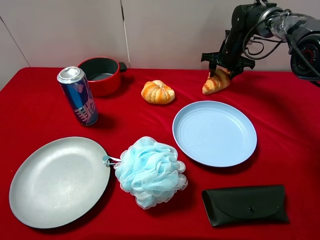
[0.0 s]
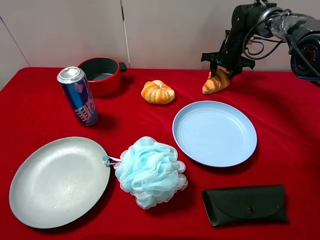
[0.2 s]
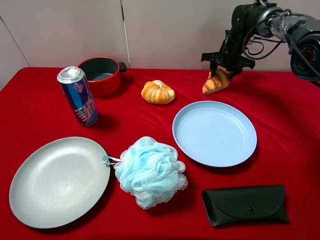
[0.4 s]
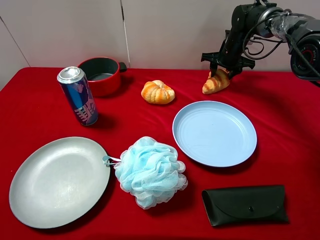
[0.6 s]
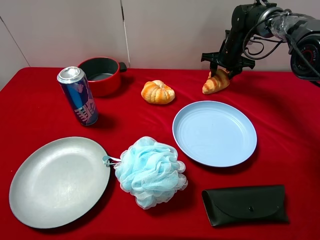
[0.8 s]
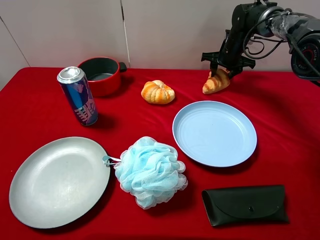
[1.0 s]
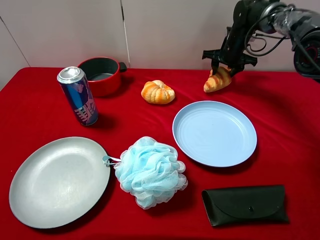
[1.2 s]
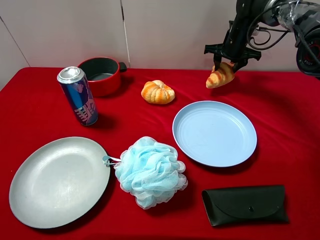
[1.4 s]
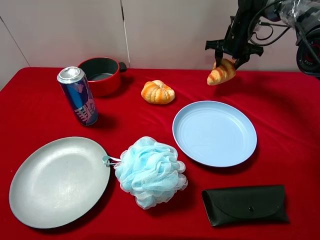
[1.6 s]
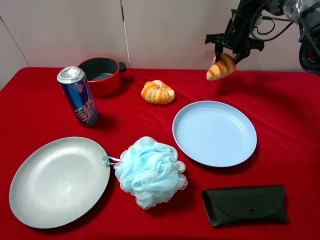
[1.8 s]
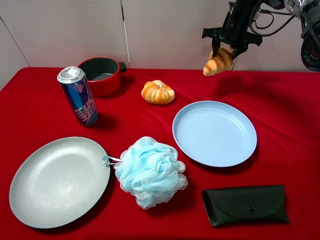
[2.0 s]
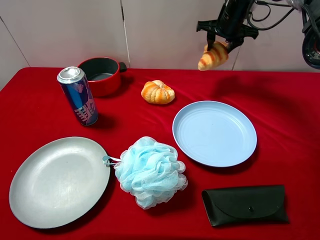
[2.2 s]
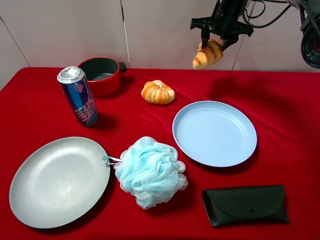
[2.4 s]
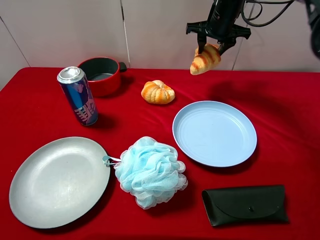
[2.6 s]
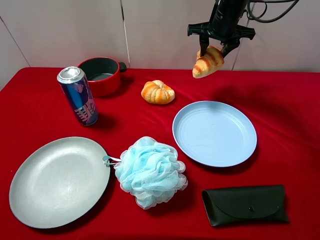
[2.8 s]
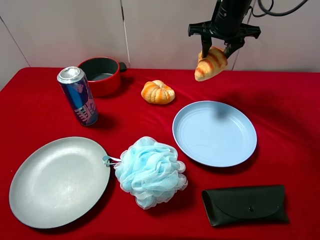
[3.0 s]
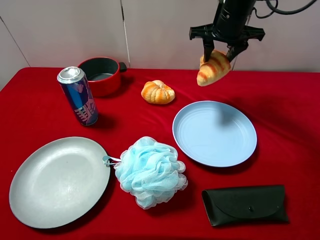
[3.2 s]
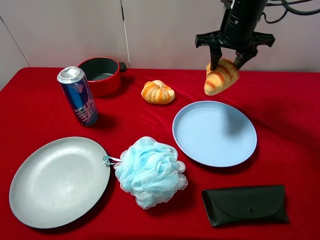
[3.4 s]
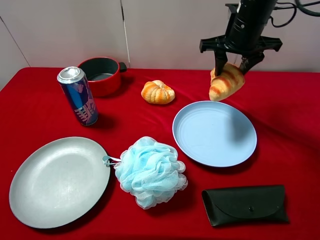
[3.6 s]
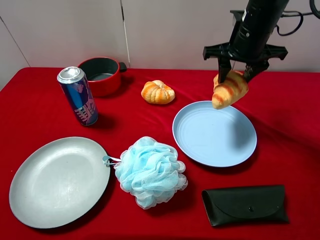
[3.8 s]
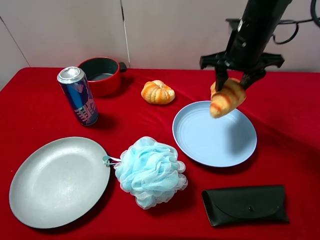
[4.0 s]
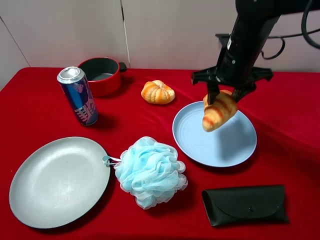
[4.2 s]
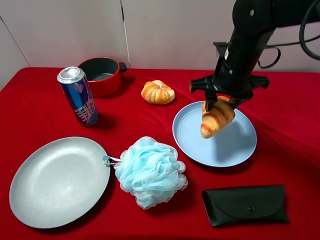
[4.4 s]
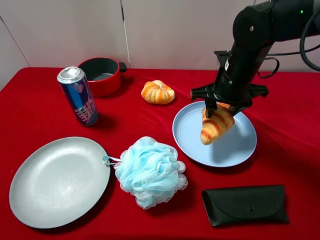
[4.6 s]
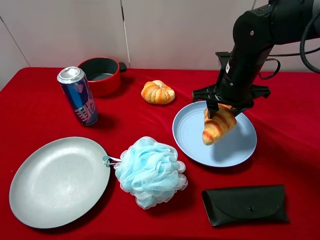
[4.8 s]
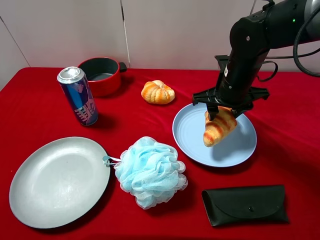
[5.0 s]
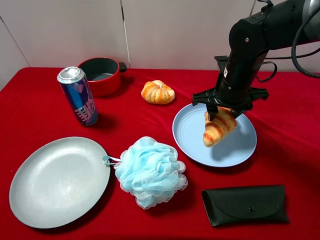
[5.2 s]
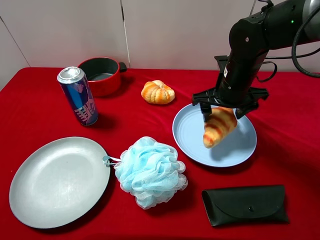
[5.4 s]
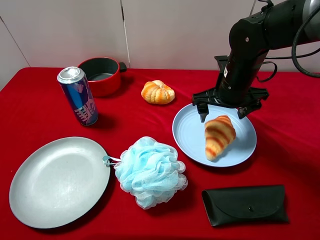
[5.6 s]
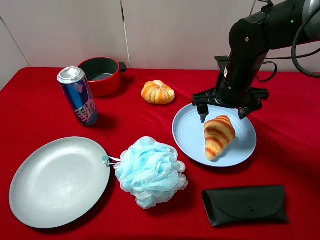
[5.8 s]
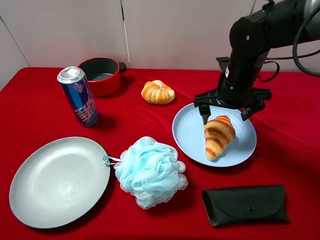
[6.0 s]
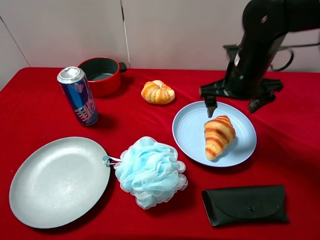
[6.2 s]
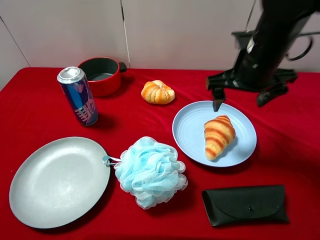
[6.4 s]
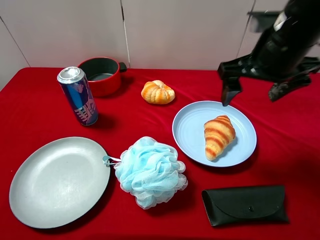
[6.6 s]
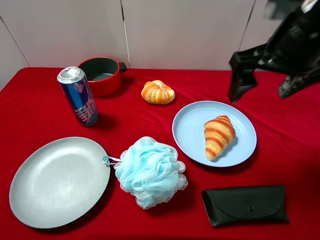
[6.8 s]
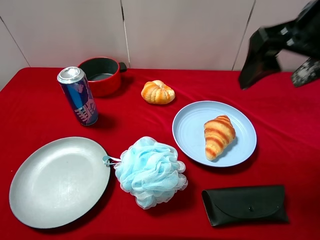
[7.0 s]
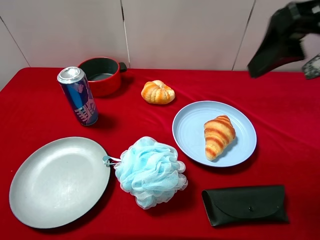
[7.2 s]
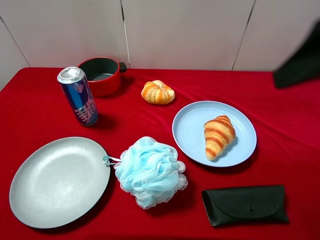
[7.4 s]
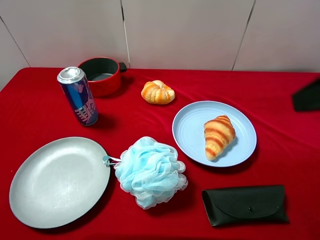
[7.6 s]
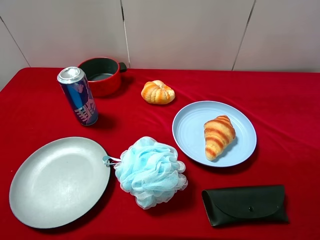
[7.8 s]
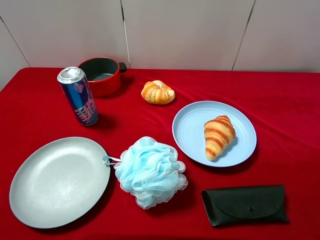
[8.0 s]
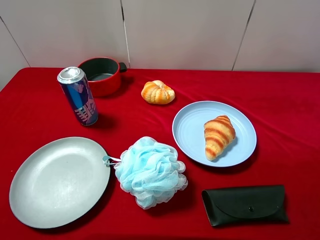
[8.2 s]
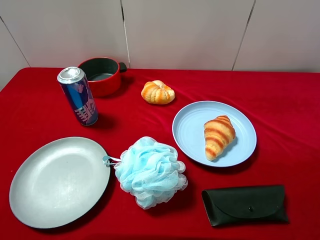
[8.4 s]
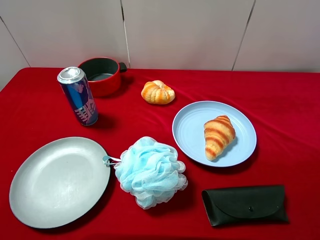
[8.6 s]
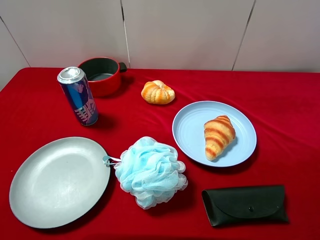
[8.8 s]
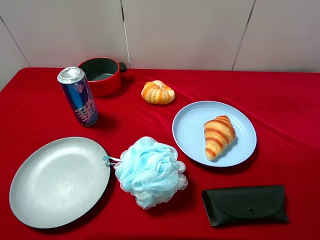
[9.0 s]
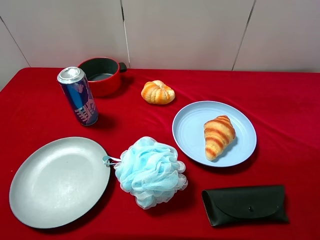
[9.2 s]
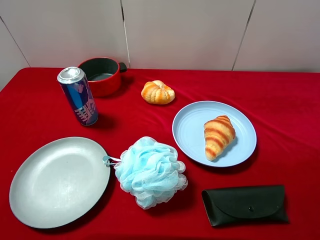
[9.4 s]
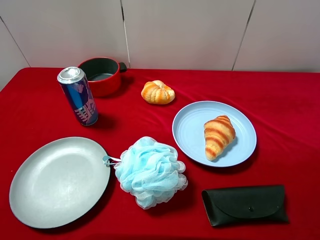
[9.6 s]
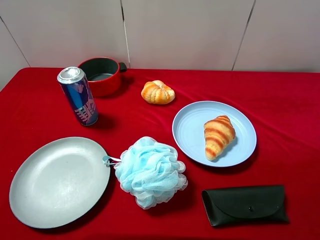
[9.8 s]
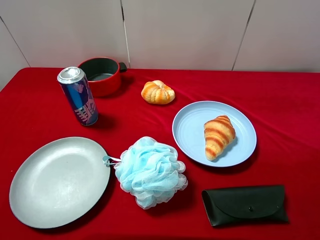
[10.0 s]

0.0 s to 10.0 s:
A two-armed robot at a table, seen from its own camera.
Task of the whole recording: pick up an item with a gripper and place it in a random container on the desktop.
0.0 to 1.4 s: The grippers move only a little.
1.4 to 2.8 s: The right gripper travels upward, backward and to the left by some 10 cm.
2.8 to 4.2 s: The right gripper travels backward by about 15 cm.
4.2 to 5.8 s: The right gripper opens its fingers.
5.8 to 7.2 s: The right gripper is displaced upward and backward by approximately 25 cm.
7.2 to 8.6 s: The right gripper travels backward, to the right and downward by roughly 20 cm.

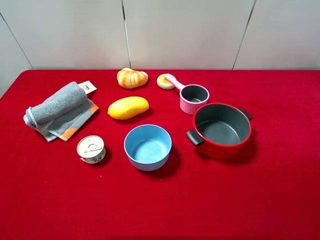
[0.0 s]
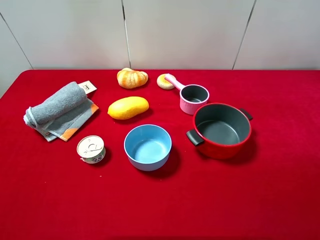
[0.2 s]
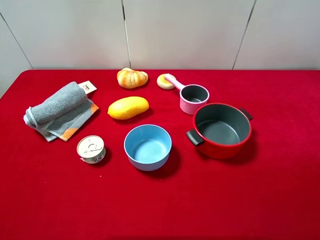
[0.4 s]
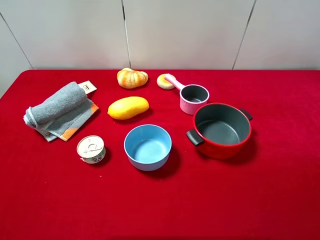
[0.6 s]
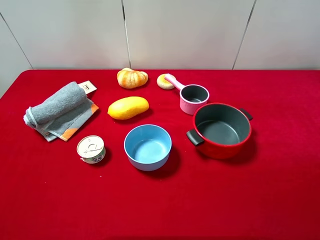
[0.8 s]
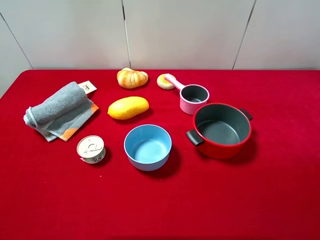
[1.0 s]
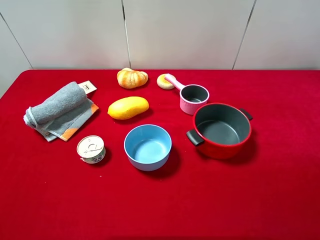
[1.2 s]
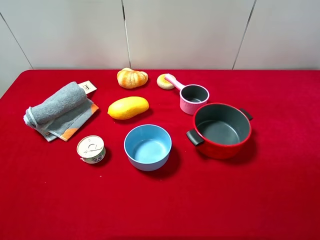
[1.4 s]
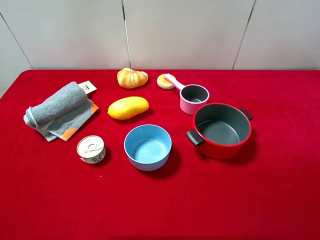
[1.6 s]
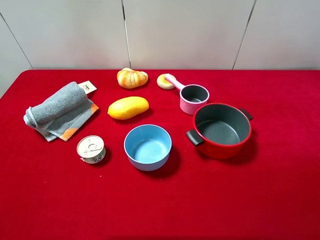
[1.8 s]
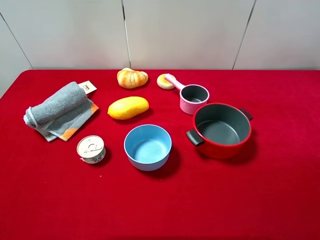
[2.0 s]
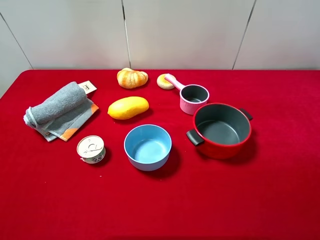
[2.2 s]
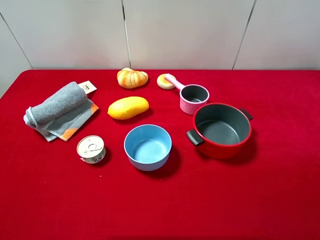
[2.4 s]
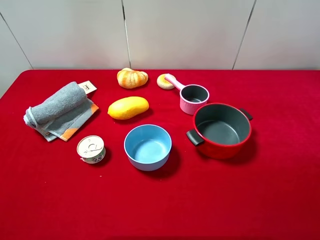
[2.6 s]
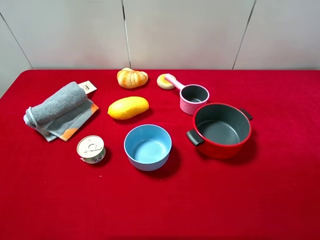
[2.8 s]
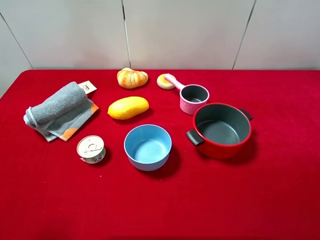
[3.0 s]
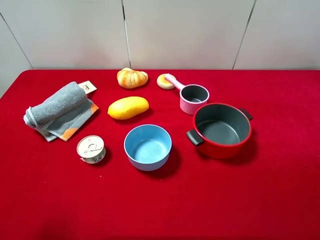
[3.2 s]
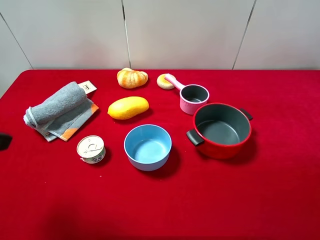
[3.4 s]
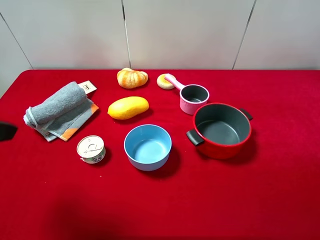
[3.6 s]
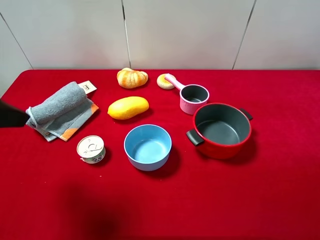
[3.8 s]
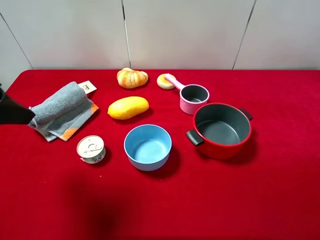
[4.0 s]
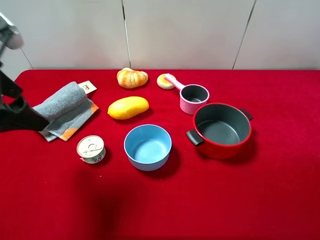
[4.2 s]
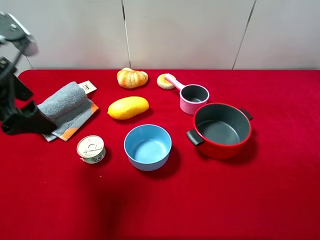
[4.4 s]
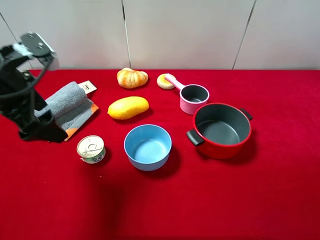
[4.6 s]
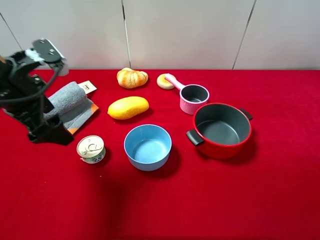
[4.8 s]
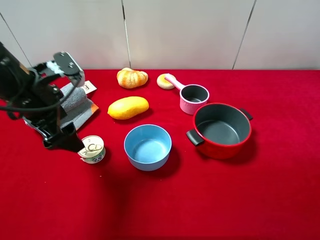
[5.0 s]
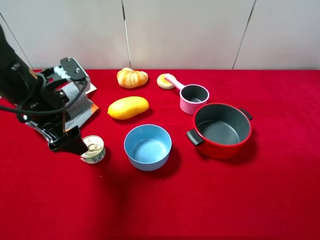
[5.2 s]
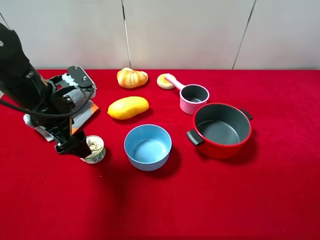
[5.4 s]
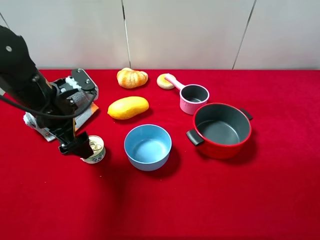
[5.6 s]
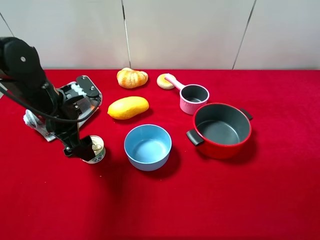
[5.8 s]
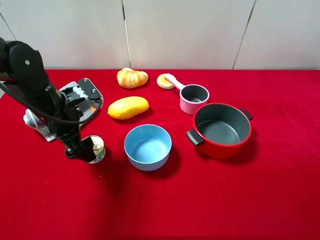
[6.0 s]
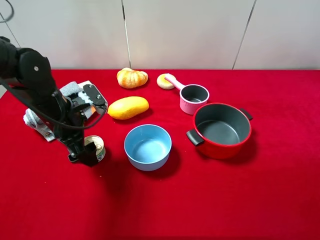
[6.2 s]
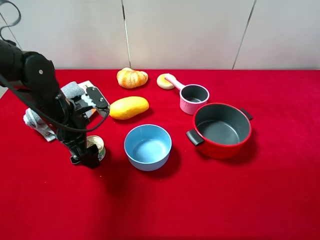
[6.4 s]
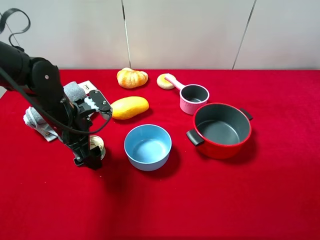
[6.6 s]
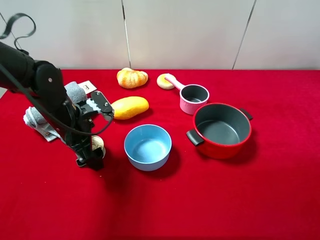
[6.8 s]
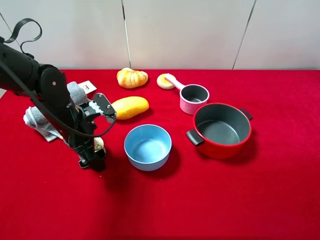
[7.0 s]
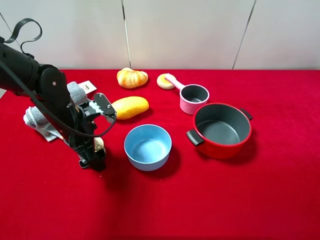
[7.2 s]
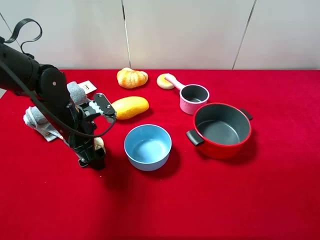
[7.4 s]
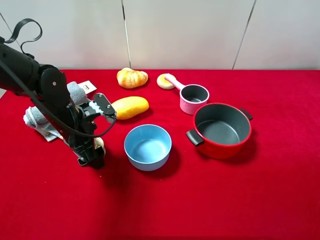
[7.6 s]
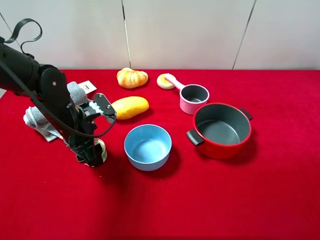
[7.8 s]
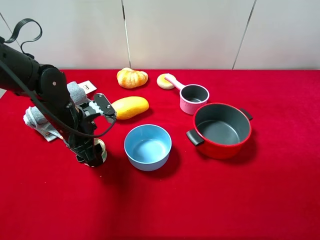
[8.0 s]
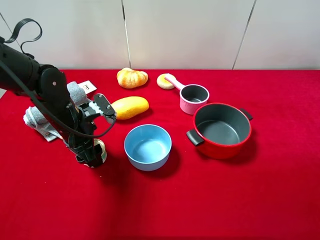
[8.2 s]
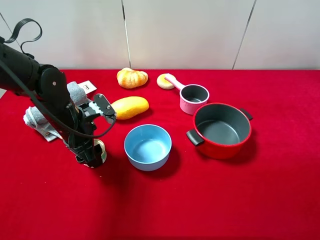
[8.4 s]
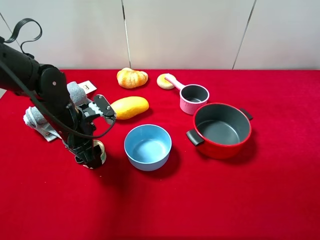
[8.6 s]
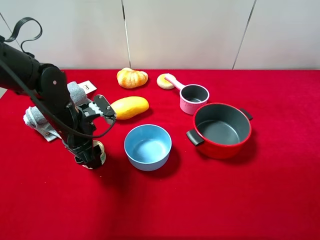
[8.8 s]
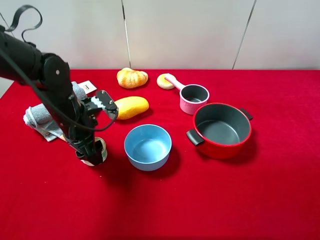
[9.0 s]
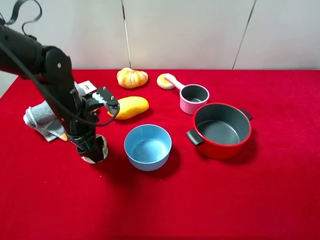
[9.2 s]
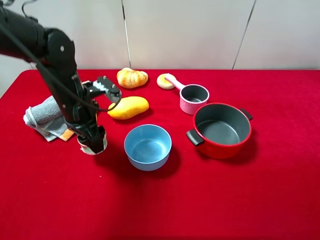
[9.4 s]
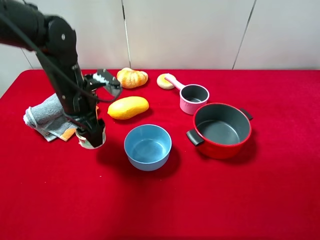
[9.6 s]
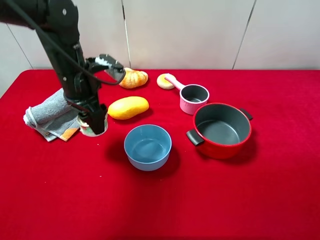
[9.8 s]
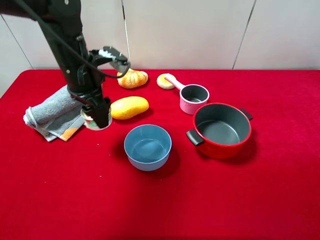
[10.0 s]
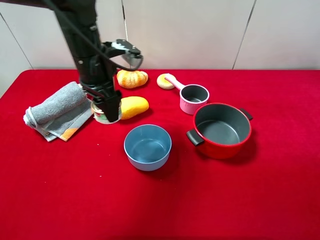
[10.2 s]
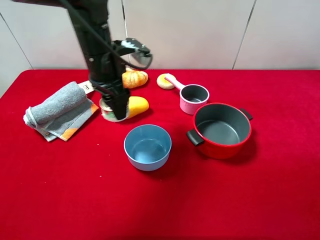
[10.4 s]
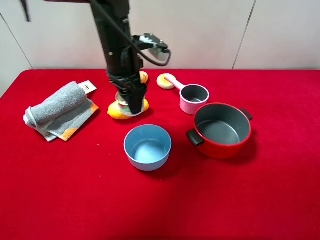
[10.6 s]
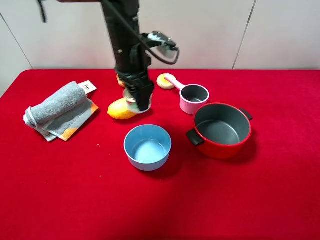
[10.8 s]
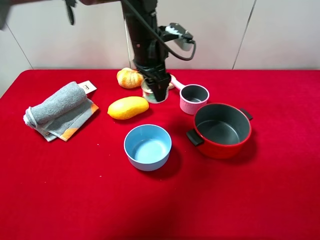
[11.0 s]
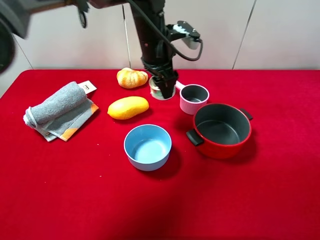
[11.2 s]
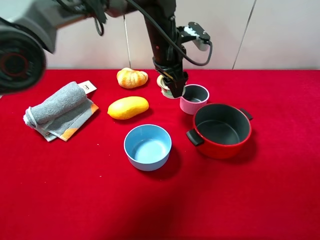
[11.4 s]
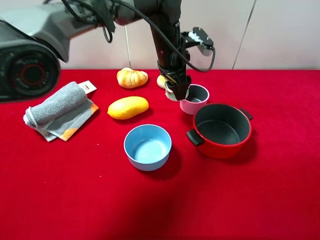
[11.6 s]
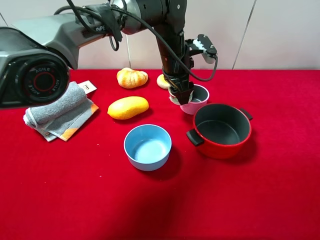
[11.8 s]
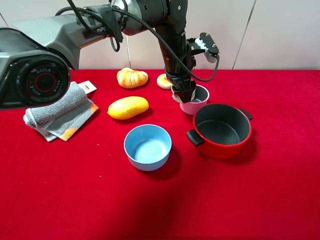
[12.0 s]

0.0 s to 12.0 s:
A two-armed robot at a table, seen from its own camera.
Task of the whole recording: pick up an item with a gripper and place it in a random container on the desktop.
0.0 to 1.6 s: Both grippers stay put.
3.0 to 4.4 s: The left gripper shifts about 15 cm forward.
4.4 to 6.0 s: The left gripper shifts roughly 15 cm downward and forward.
6.0 to 7.6 s: The left gripper closes up.
7.6 to 9.0 s: The left gripper closes up.
9.0 to 10.4 s: The left gripper moves upward, to the right and forward, about 15 cm.
10.4 to 12.0 s: The left gripper shifts roughly 15 cm to the right and forward.
